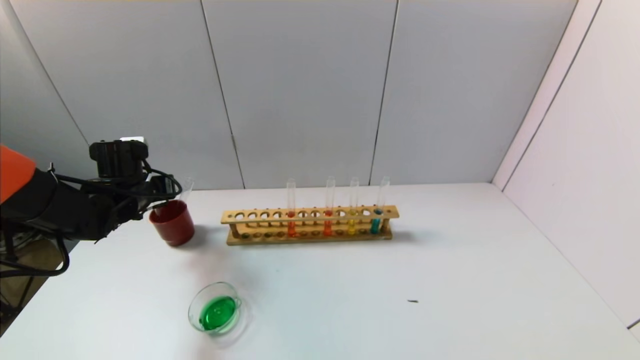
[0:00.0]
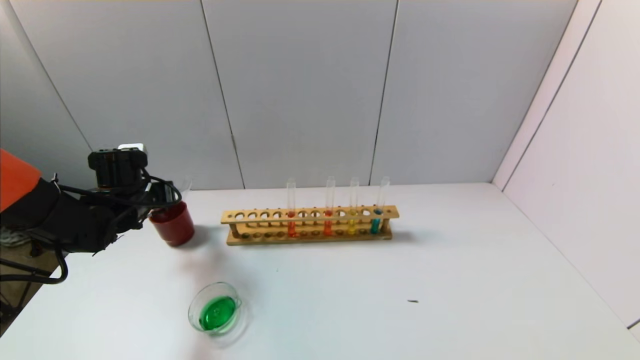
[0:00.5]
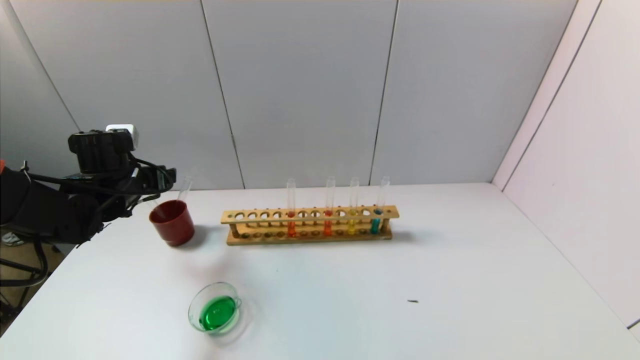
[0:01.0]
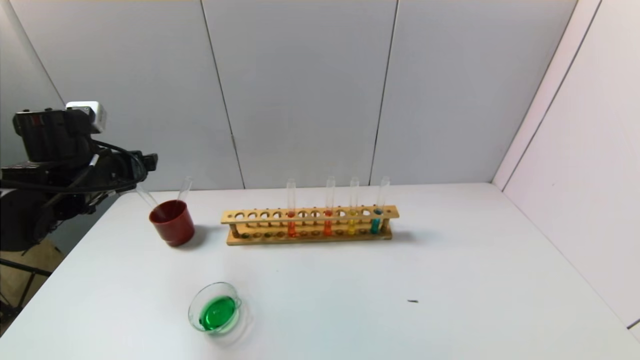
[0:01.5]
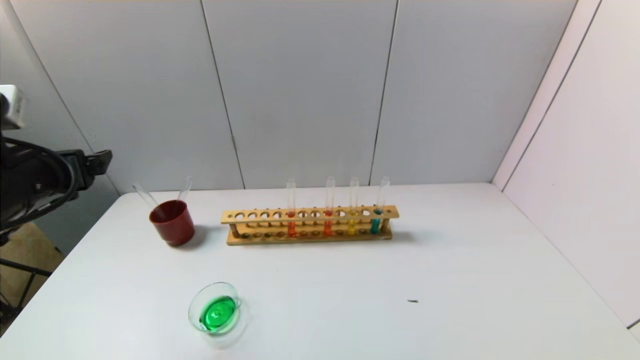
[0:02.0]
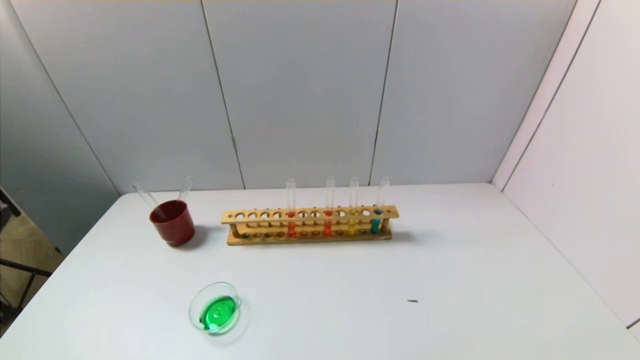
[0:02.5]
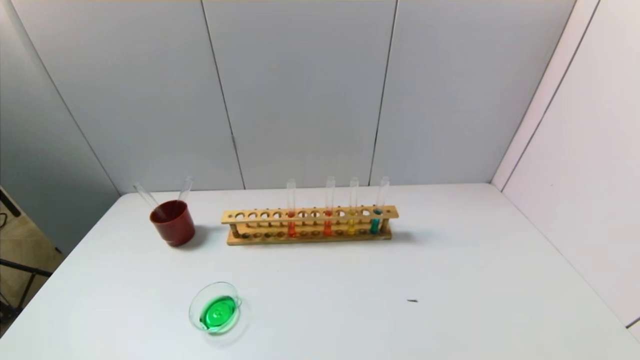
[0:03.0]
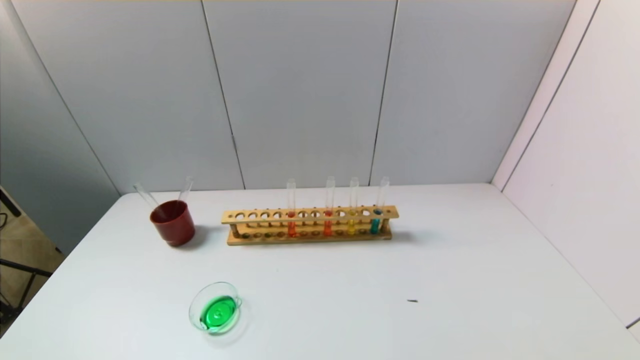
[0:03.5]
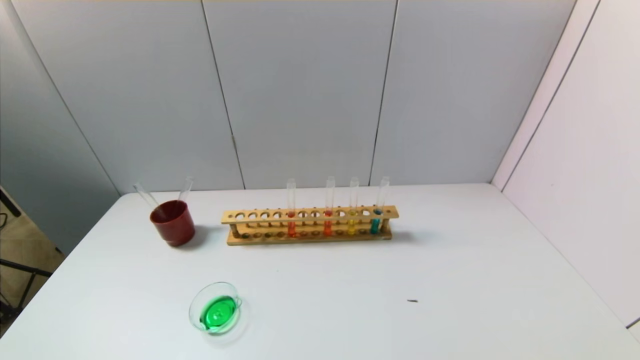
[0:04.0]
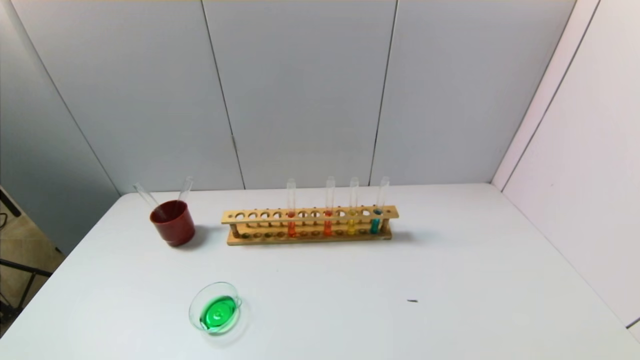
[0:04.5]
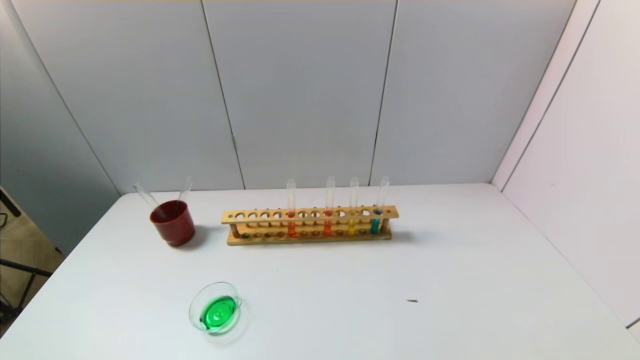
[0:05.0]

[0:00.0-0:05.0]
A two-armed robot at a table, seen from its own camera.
Task of the whole recording: pick up the test tube with yellow pigment and the test tube with blue pigment by grippers and pour them into the beaker.
0:00.0 to 0:02.5: The left gripper goes about 30 cm backward, and opens its fingers.
